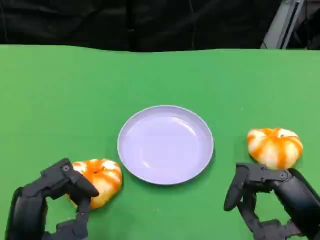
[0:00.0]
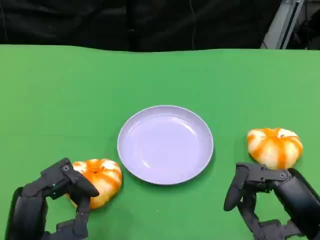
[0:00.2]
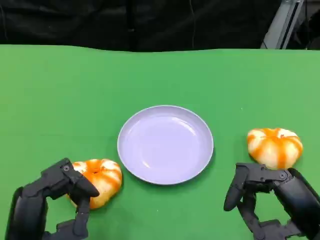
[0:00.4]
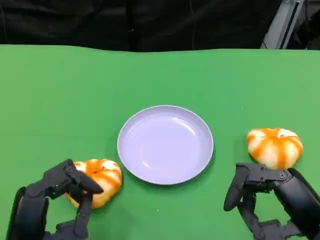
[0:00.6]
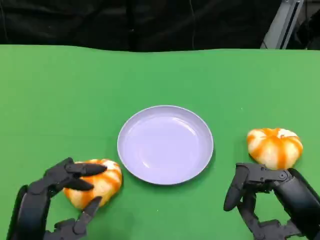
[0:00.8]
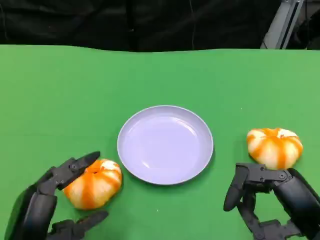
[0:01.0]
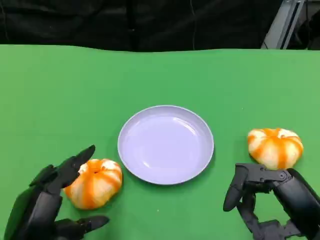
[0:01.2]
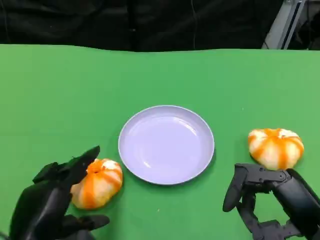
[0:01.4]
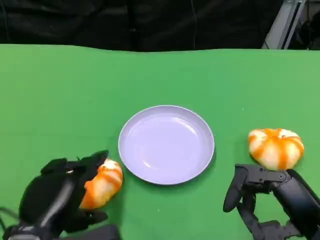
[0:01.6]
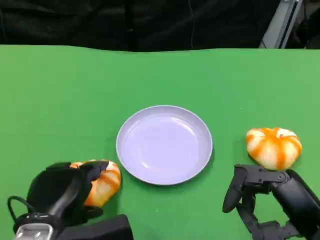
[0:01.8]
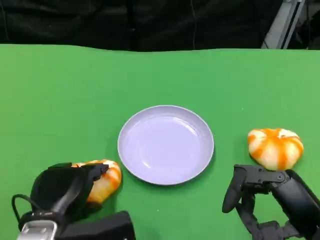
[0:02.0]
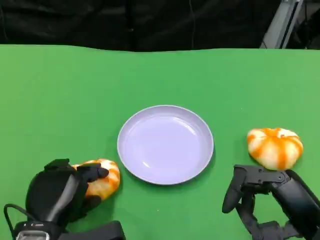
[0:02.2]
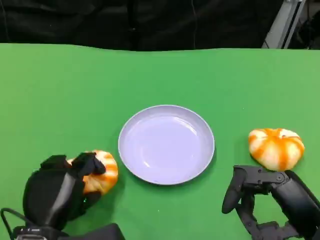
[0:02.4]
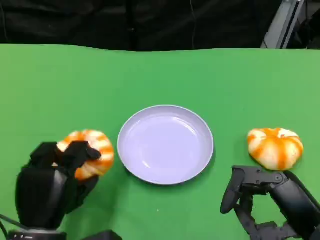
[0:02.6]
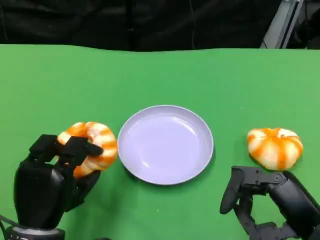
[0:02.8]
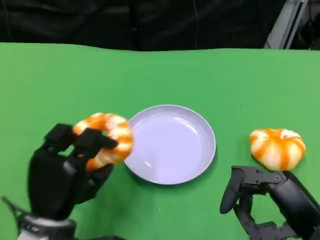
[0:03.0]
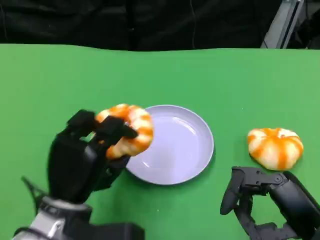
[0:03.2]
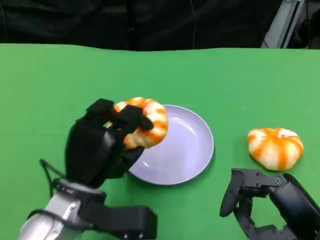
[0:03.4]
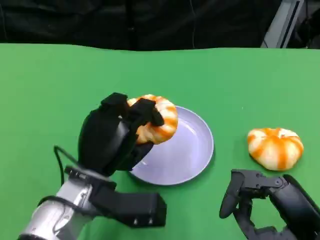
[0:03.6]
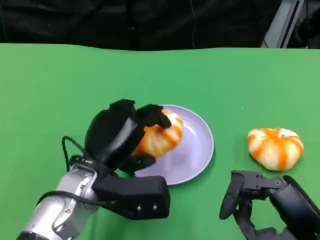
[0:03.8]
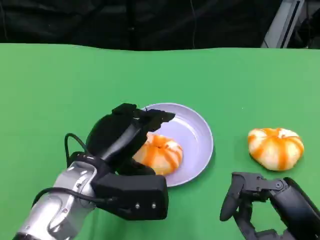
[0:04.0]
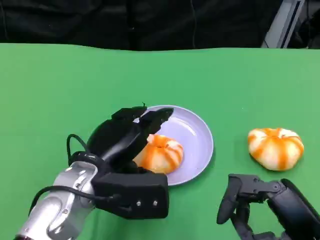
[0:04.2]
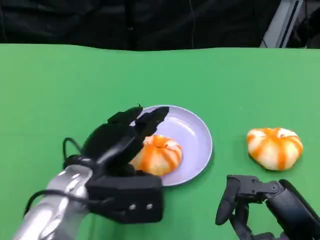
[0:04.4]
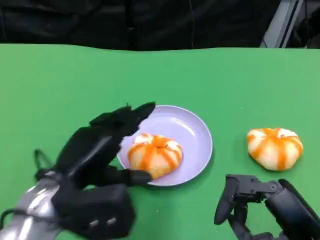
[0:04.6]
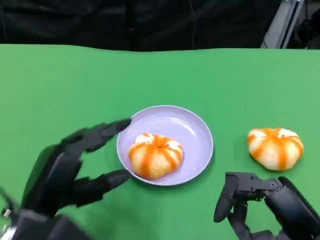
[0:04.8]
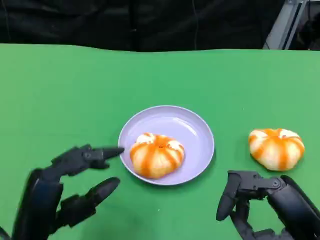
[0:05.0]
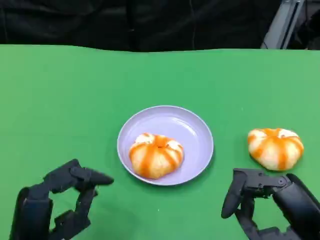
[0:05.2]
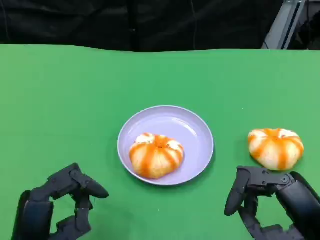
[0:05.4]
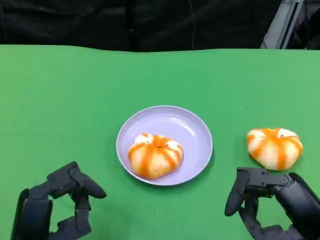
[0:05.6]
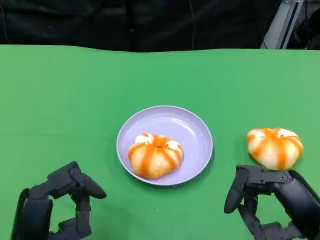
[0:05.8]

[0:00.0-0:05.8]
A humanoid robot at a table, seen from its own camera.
Task of the whole recording: Grasp the bread from the table and place it into the plate.
0:01.4 to 0:02.8: The left hand changes place by about 5 cm.
0:02.8 to 0:04.4: The left hand shifts some 5 cm upward.
0:04.4 to 0:05.8: The left hand goes some 10 cm backward and to the left.

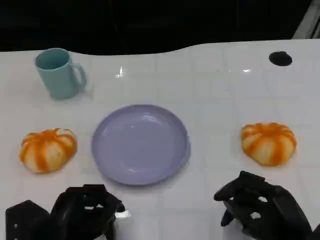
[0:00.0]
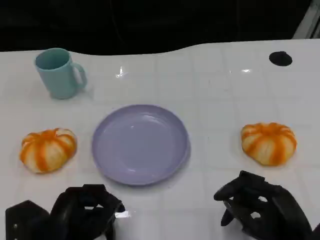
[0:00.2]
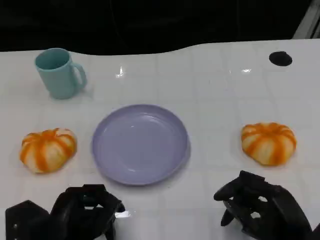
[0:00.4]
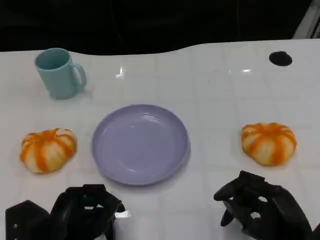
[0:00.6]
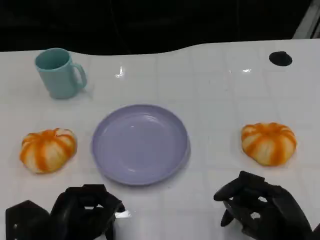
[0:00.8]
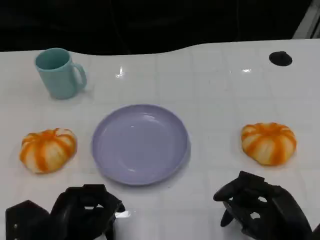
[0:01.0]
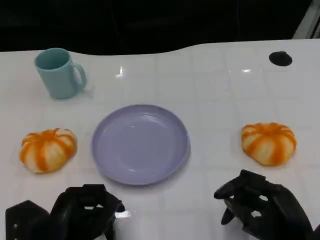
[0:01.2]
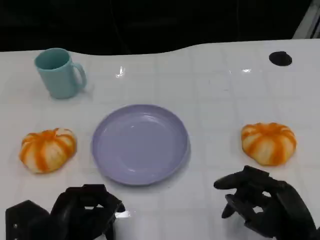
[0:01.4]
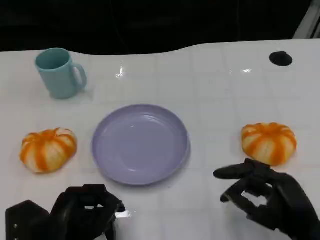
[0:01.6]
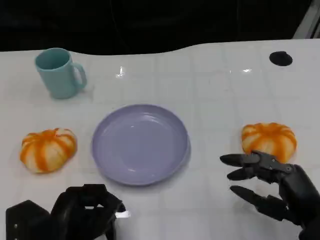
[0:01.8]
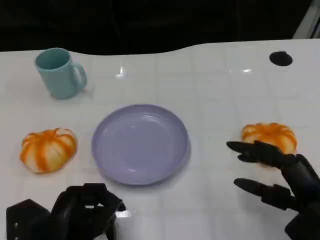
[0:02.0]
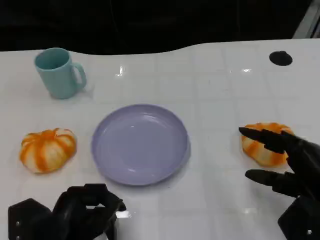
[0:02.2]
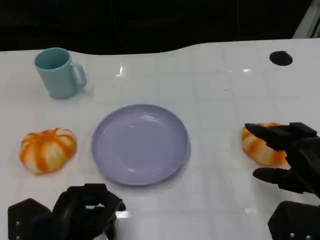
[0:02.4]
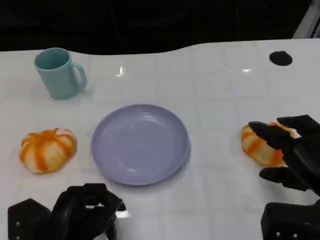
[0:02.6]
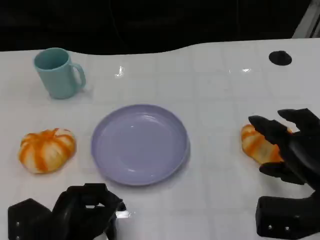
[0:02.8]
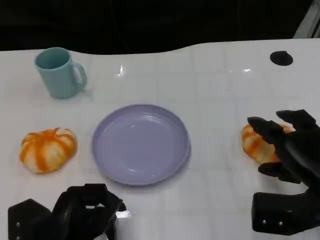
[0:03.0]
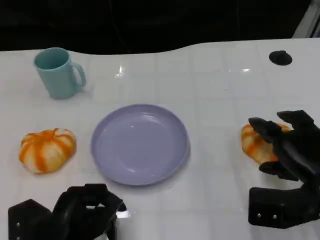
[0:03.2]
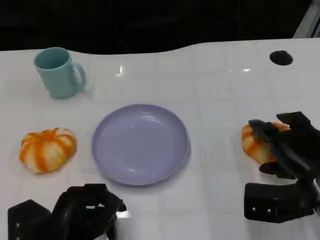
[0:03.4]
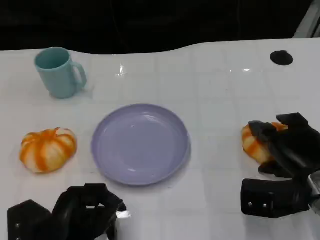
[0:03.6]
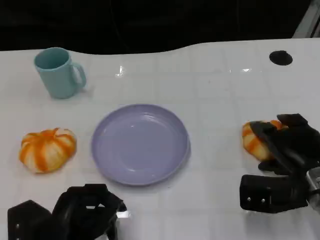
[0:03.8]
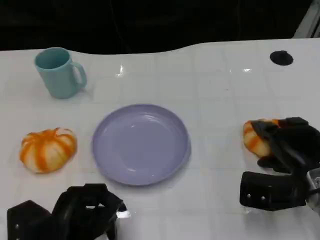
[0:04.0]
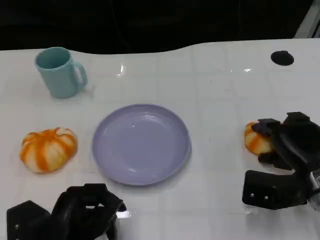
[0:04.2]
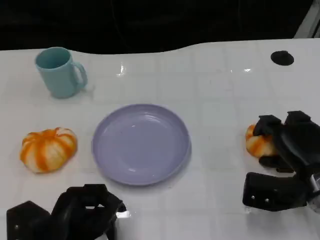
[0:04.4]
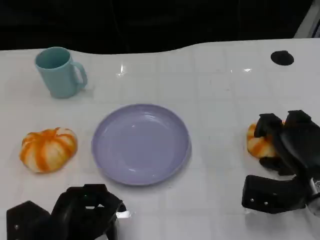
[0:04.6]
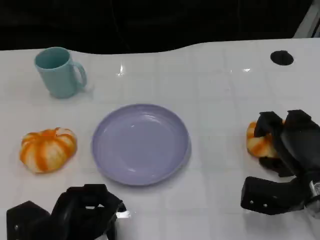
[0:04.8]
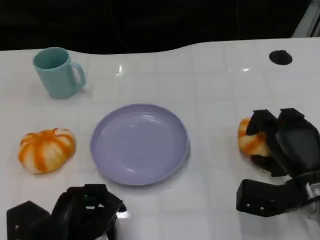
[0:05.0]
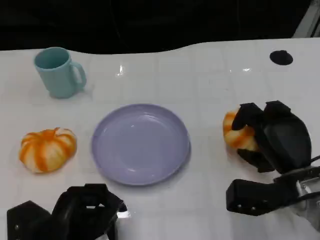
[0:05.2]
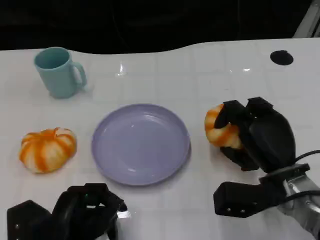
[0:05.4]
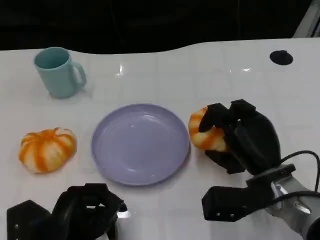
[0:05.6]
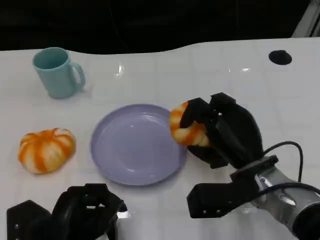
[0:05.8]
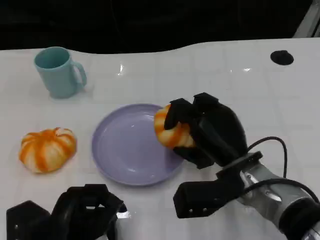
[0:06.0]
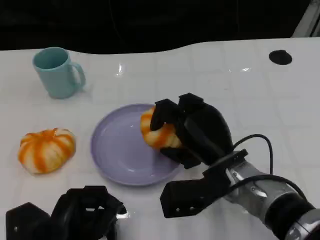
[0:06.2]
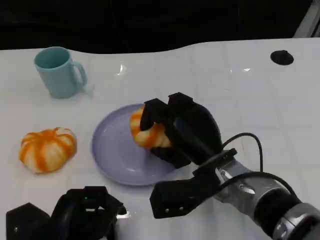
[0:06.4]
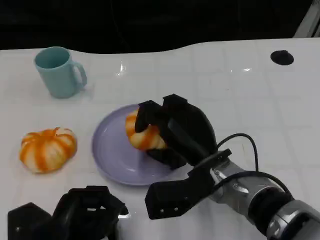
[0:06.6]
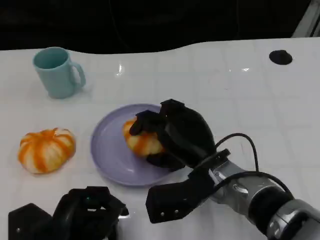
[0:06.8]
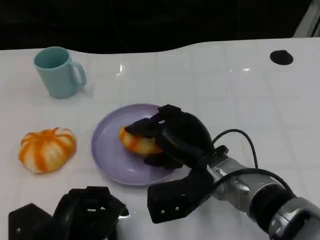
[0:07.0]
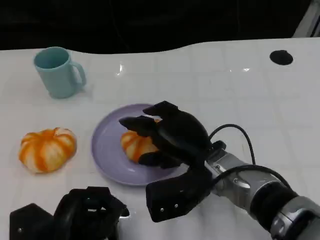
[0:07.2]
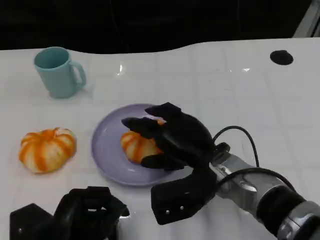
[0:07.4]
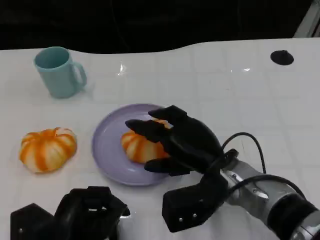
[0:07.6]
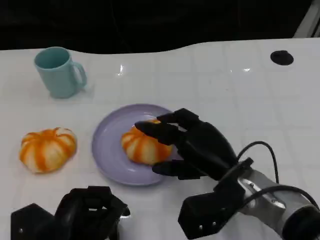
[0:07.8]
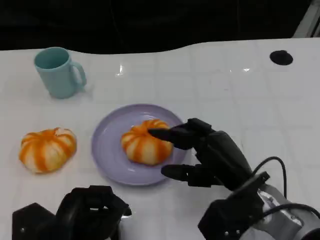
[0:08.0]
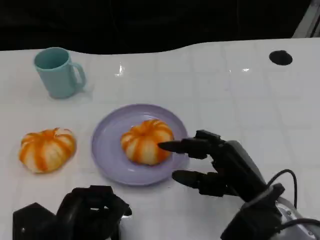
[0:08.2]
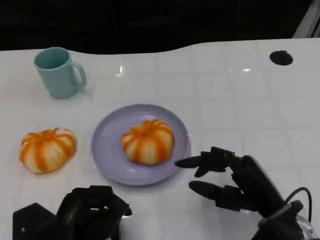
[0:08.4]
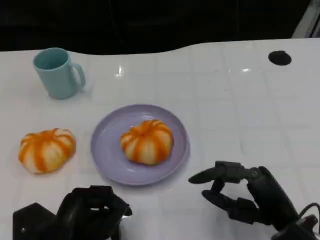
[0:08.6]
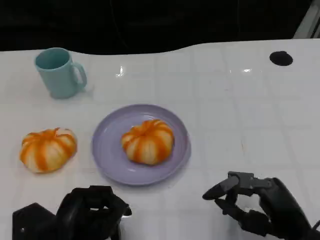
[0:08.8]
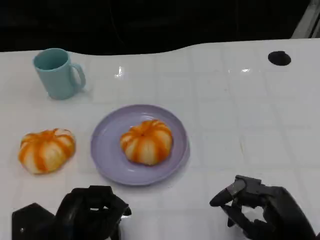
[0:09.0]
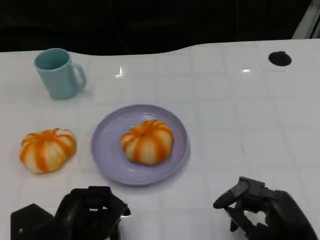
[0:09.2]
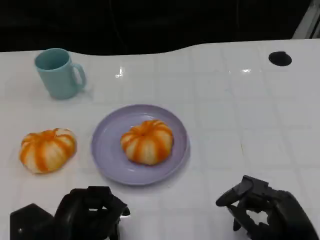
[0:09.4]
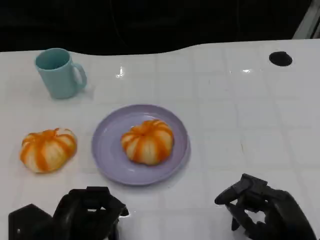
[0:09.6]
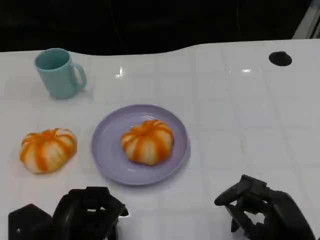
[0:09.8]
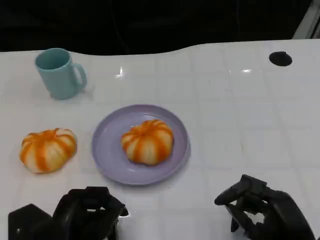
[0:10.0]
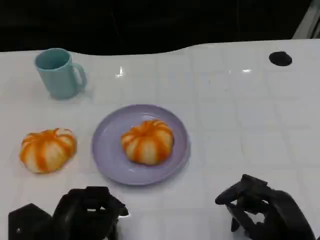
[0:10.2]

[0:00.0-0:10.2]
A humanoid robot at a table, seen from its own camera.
Task of the whole recording: Grasp the bread from the table and place it into the plate.
0:00.0 to 0:01.4: Both hands stay put.
0:01.4 to 0:03.0: The right hand moves forward, roughly 5 cm.
0:03.0 to 0:04.4: The right hand moves approximately 5 cm.
0:04.4 to 0:05.8: The right hand heads to the left, covering approximately 10 cm.
0:05.8 to 0:07.2: The right hand goes some 5 cm to the left.
0:07.2 to 0:08.8: The right hand heads to the right and backward, covering some 15 cm.
0:08.8 to 0:10.2: The hands move only a little.

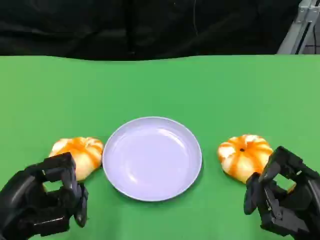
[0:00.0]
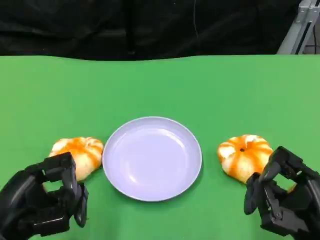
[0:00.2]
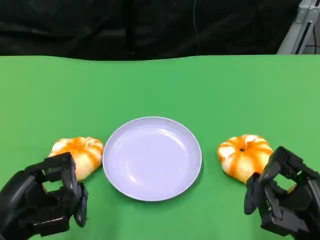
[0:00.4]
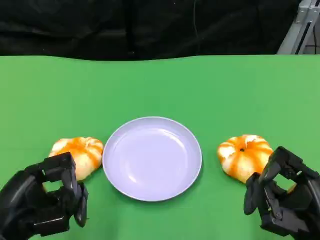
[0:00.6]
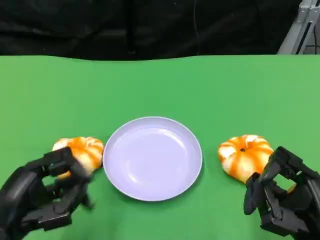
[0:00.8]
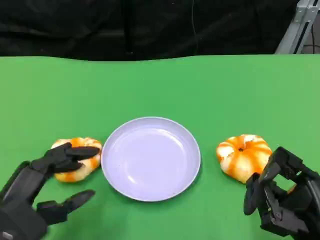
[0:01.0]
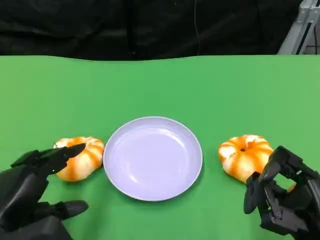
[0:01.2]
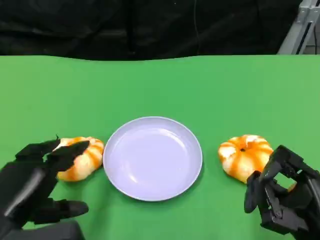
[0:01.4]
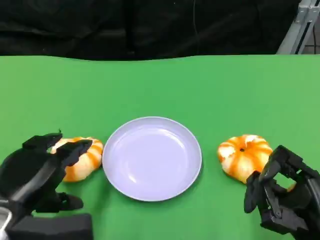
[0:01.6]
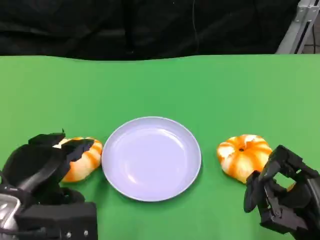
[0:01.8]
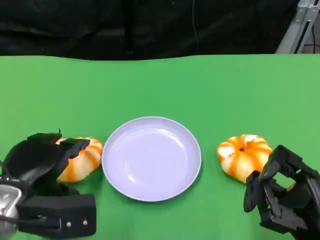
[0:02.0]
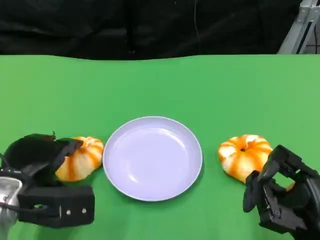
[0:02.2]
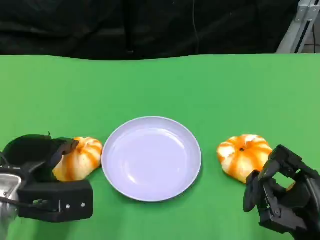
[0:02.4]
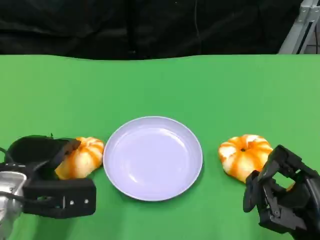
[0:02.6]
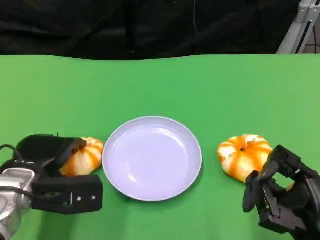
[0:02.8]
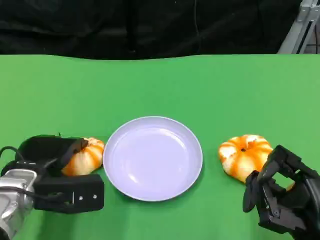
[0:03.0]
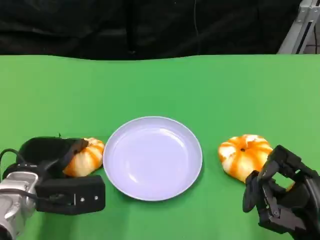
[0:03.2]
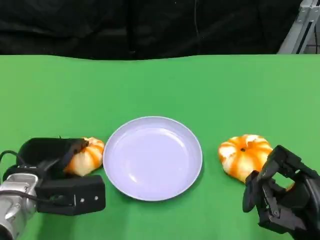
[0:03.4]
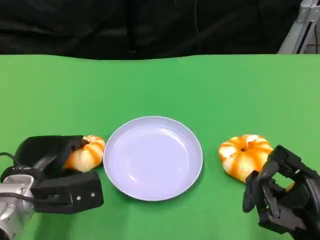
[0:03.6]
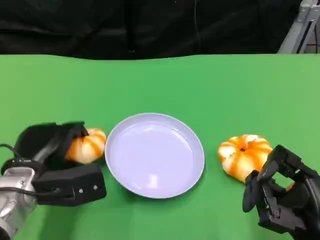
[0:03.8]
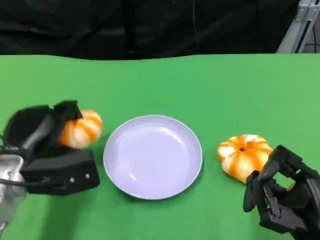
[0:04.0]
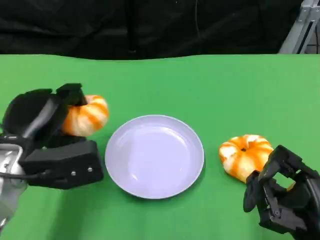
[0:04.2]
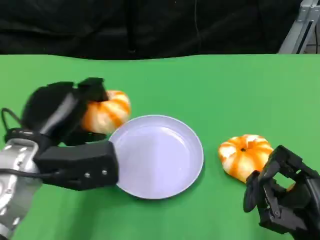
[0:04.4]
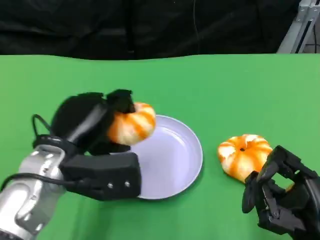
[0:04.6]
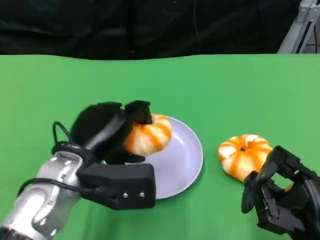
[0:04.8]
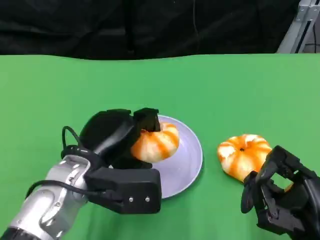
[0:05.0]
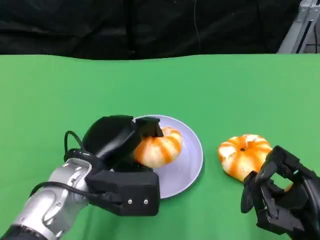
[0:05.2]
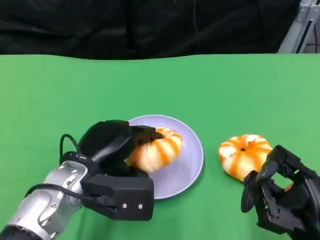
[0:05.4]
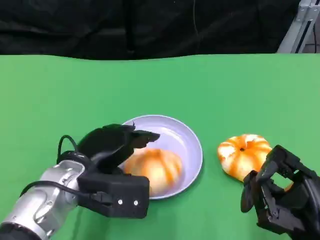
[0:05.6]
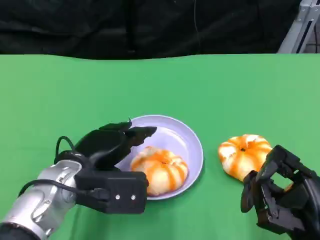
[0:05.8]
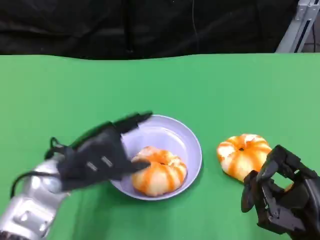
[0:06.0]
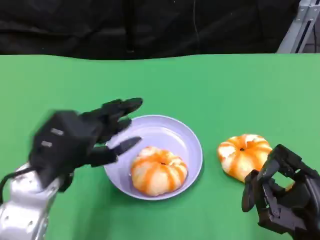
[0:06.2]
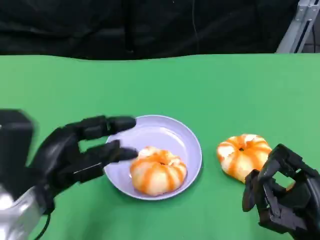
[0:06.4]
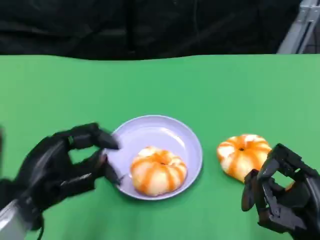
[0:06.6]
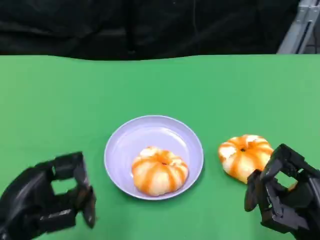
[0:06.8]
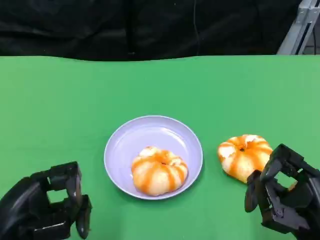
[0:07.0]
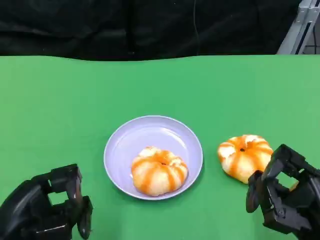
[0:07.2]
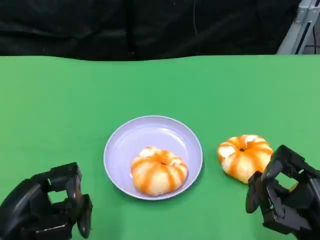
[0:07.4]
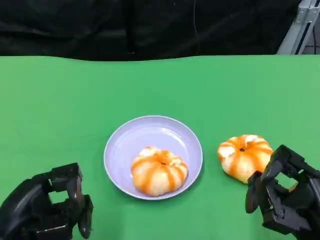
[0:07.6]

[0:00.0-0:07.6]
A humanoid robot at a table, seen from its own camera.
Task of the whole recording: Grasp the bread from the table and place it into the plate.
0:01.6 to 0:03.0: The left hand travels forward by approximately 5 cm.
0:03.0 to 0:04.6: The left hand travels upward and to the right by approximately 10 cm.
0:06.0 to 0:07.6: The left hand moves backward and to the left, approximately 15 cm.
